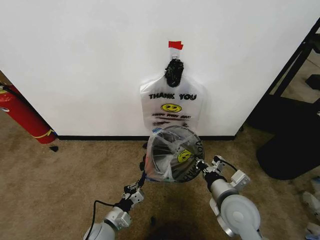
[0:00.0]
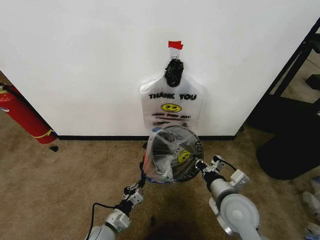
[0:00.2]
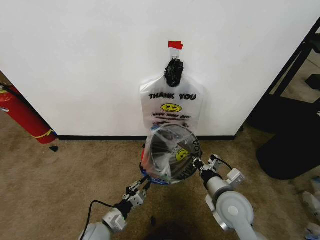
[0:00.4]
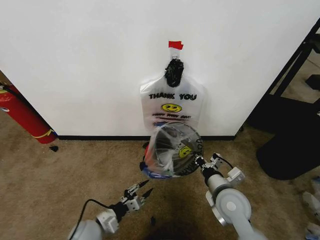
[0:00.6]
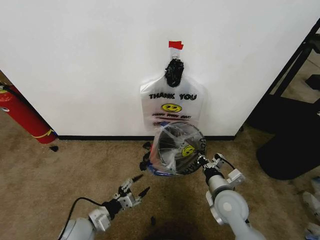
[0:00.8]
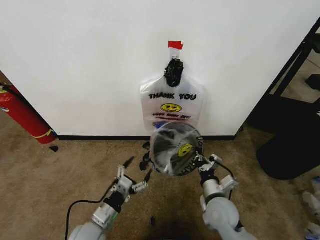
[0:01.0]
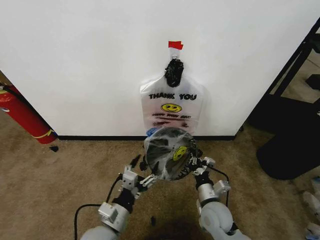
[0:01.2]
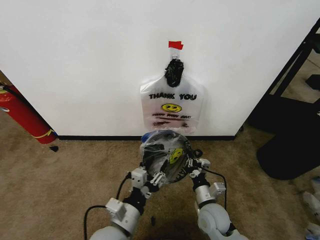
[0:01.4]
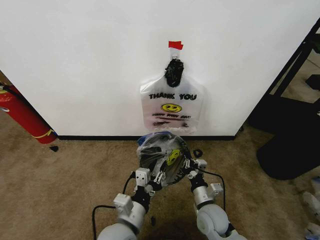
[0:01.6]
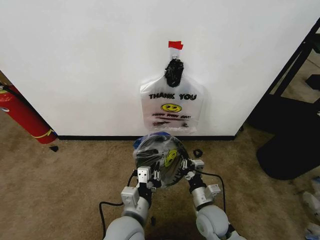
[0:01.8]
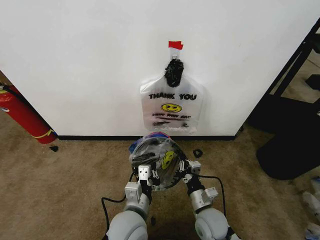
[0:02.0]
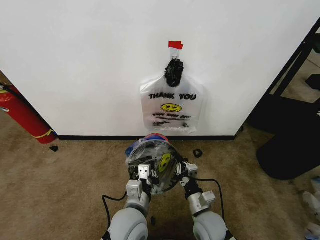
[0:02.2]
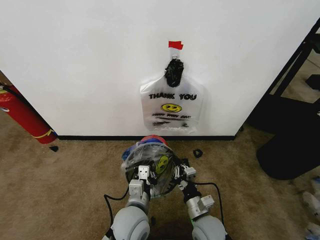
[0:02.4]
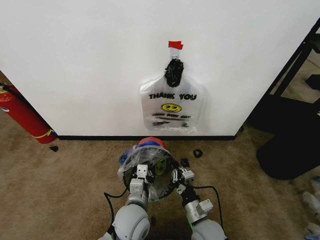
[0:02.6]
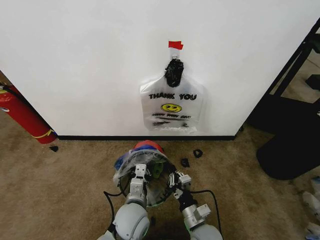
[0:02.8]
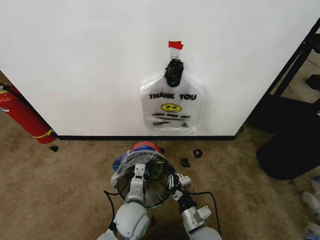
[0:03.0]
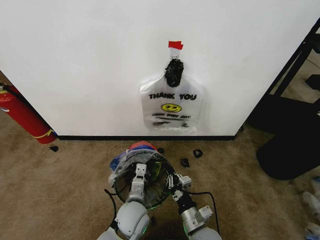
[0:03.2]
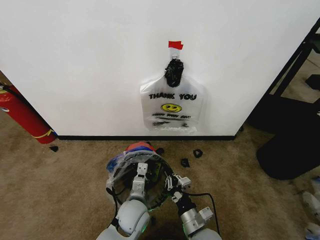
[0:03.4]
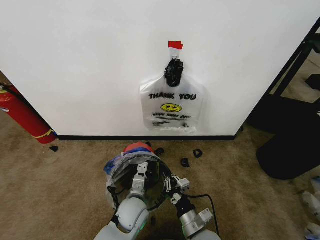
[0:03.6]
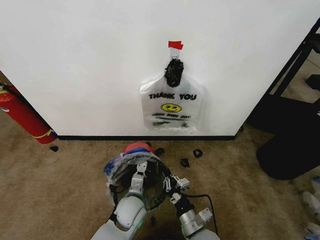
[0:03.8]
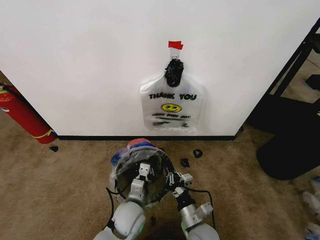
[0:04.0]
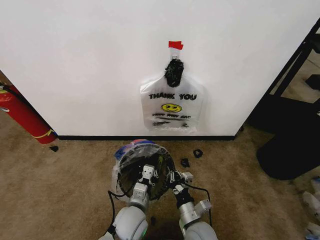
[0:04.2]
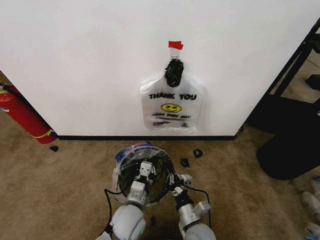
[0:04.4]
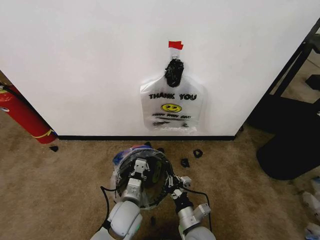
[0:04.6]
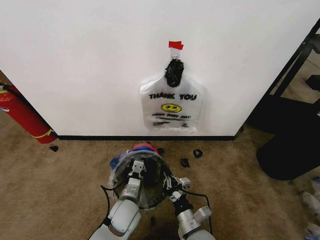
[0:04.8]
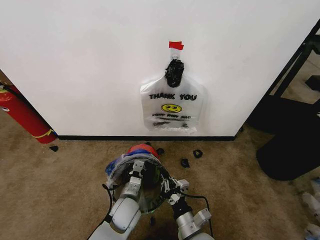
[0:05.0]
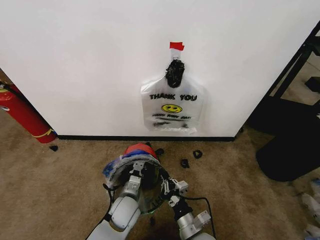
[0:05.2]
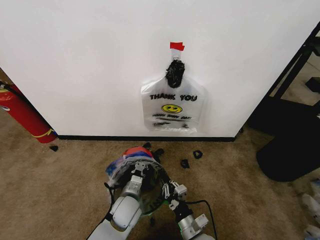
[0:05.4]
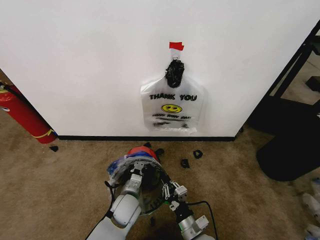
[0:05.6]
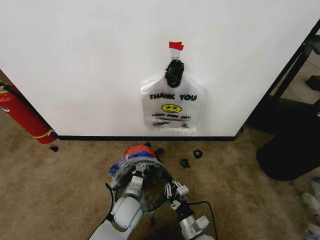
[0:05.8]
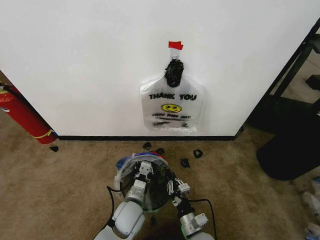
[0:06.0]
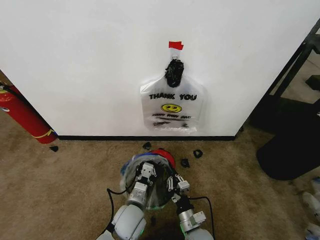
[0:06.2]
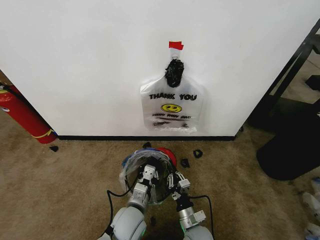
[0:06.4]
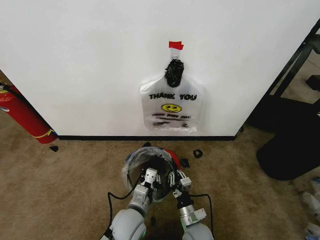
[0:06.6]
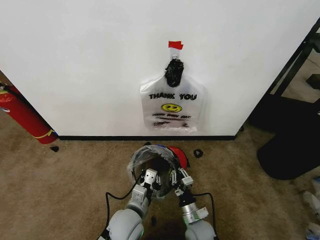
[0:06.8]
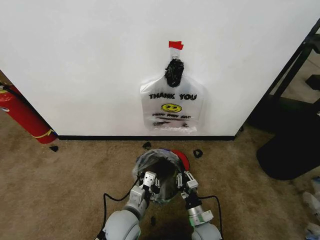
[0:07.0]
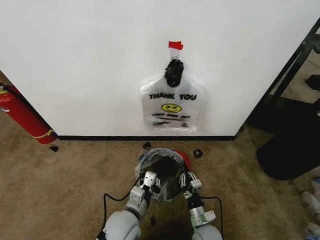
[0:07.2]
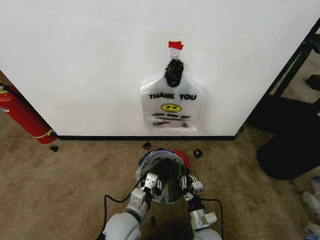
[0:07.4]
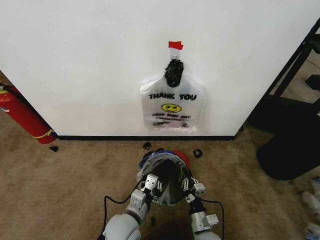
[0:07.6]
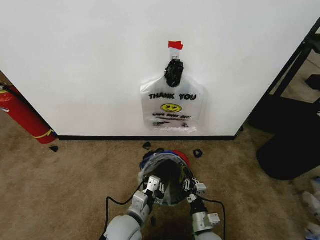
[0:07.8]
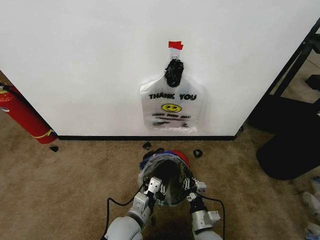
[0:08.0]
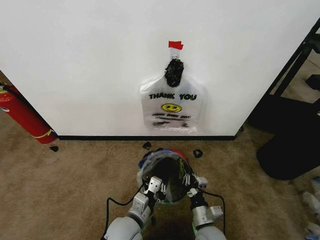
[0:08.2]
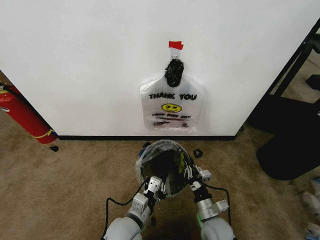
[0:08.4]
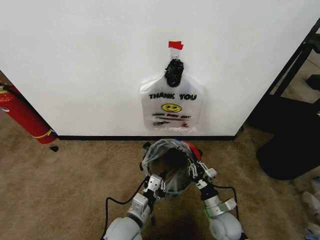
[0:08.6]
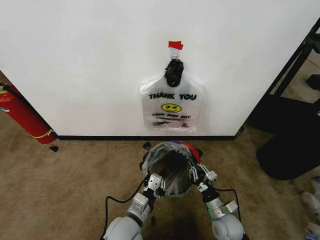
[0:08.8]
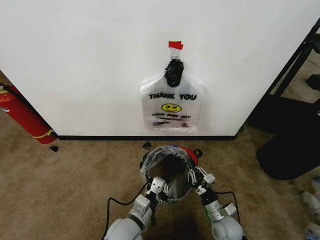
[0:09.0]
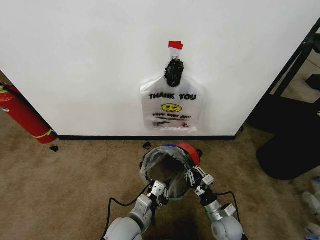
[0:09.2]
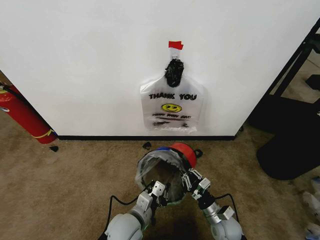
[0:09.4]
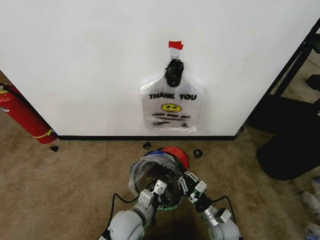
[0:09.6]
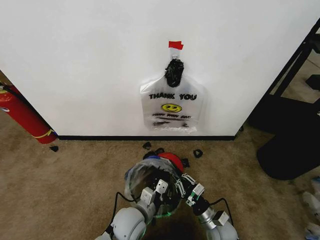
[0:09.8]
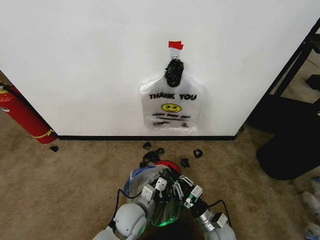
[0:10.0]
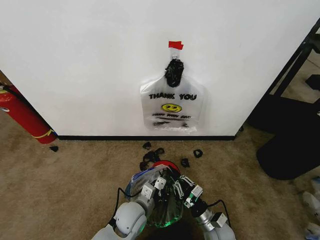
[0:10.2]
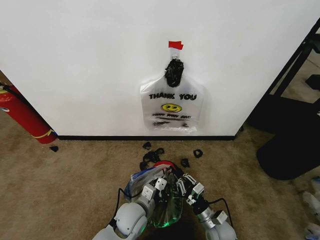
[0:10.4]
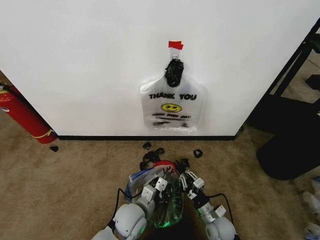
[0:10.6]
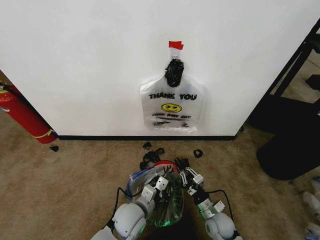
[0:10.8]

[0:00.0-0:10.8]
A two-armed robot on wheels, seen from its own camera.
Task of the whole recording: Pick up the garbage bag from the wall and place it over the trash bin.
0:00.0 to 0:01.6: The right gripper heads downward, covering roughly 10 cm; the left gripper goes some 20 cm upward and to the right, and opens up.
0:01.6 to 0:03.0: The right gripper heads backward, covering approximately 5 cm. Meanwhile the left gripper moves forward and downward, roughly 10 cm, and closes.
0:03.0 to 0:04.6: The grippers move only a little.
0:07.8 to 0:09.2: The right gripper travels to the right and forward by approximately 10 cm.
0:09.2 to 0:10.8: The left gripper goes some 5 cm forward.

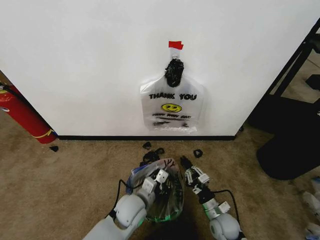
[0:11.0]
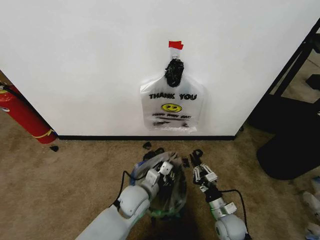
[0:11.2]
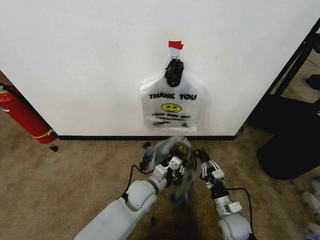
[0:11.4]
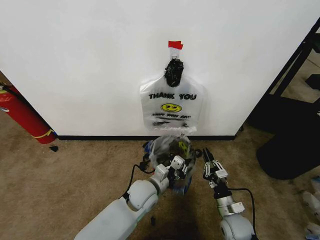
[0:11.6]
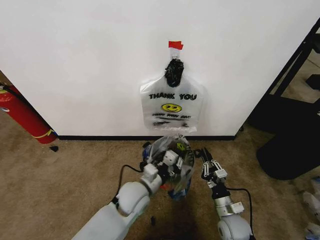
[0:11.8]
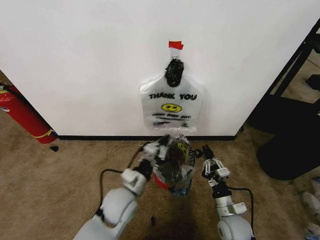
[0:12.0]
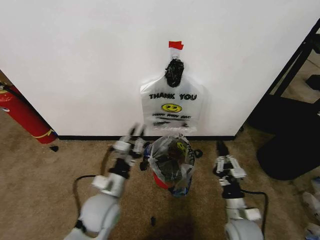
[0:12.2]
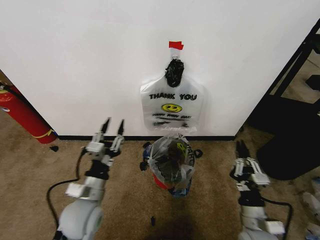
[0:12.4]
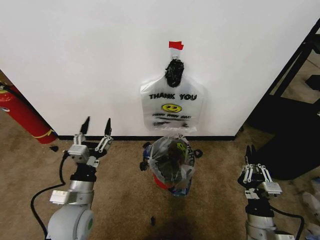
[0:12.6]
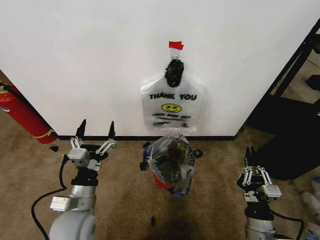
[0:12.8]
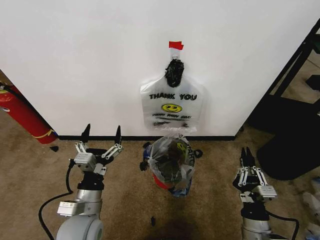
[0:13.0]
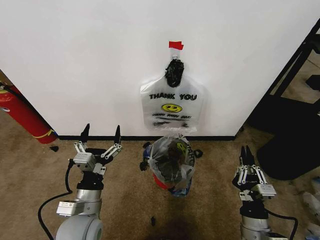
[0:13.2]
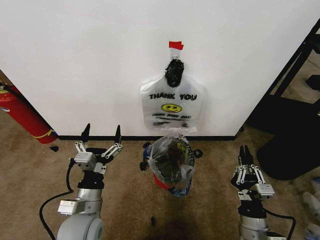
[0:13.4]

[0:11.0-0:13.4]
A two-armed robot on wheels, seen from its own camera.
Task of the whole recording: Pick up the garbage bag from the wall and place it over the trash bin.
0:11.0 to 0:12.2: The left gripper goes approximately 10 cm upward and to the left. Meanwhile the right gripper shifts some 10 cm upward.
0:12.2 to 0:13.4: The right gripper is displaced backward by about 5 cm. The left gripper travels backward and to the left by some 10 cm, and opens up.

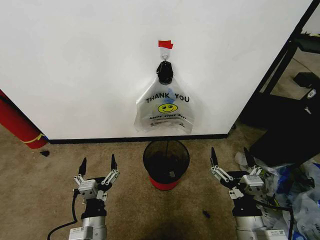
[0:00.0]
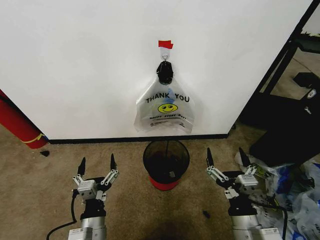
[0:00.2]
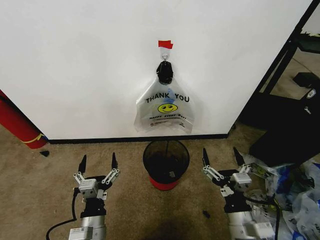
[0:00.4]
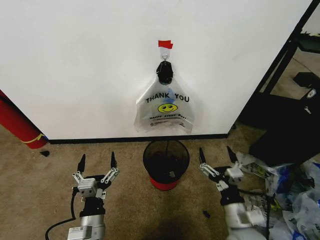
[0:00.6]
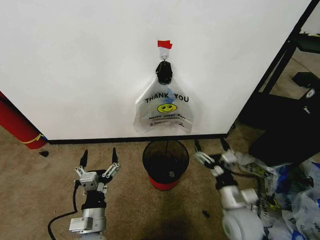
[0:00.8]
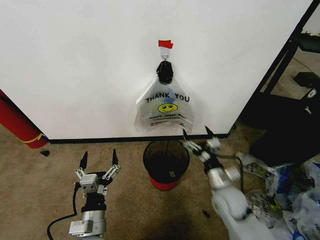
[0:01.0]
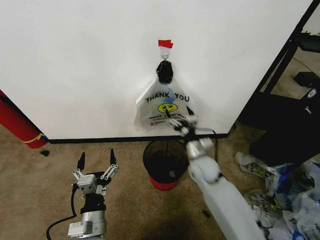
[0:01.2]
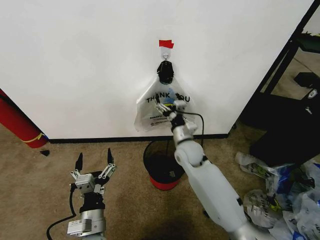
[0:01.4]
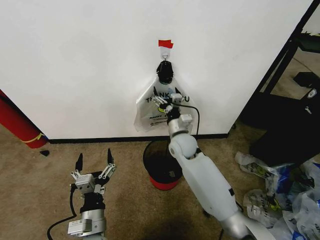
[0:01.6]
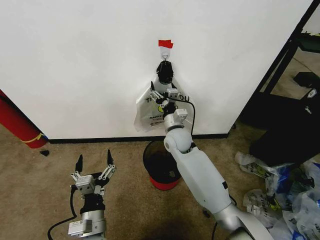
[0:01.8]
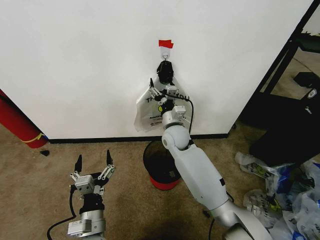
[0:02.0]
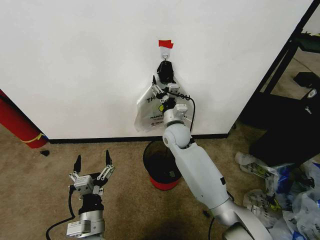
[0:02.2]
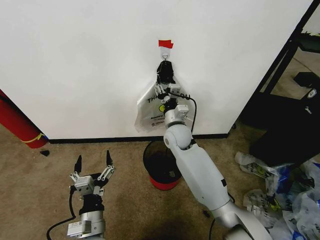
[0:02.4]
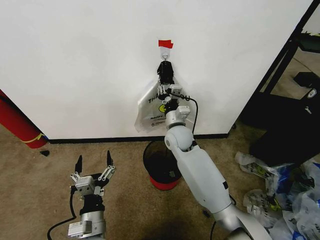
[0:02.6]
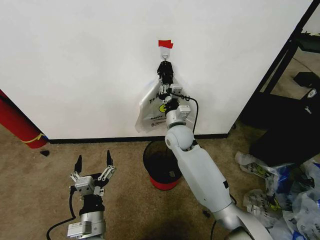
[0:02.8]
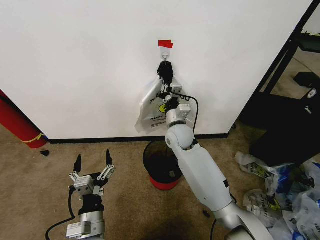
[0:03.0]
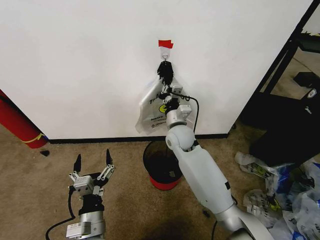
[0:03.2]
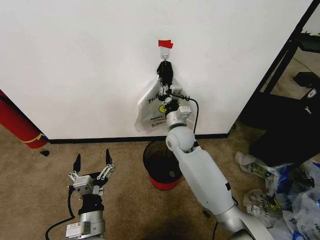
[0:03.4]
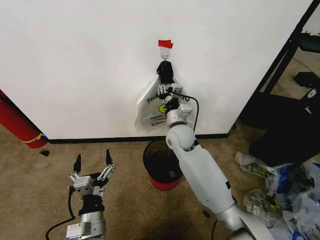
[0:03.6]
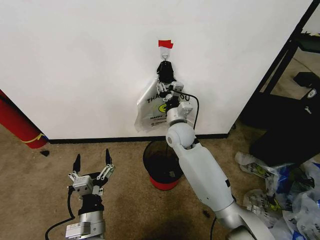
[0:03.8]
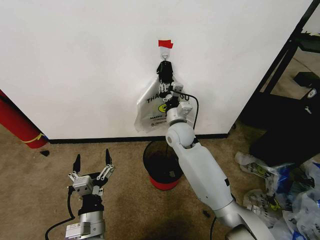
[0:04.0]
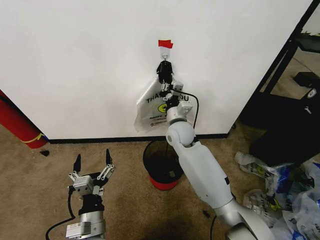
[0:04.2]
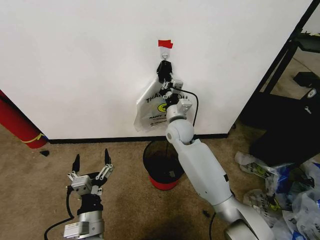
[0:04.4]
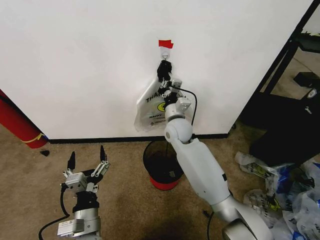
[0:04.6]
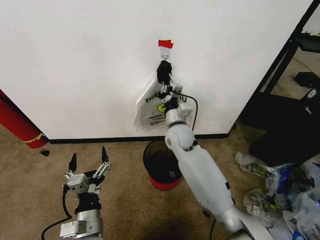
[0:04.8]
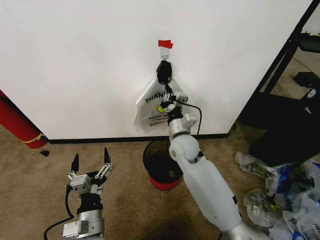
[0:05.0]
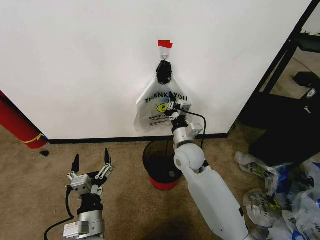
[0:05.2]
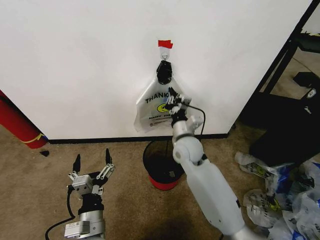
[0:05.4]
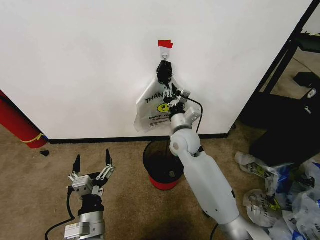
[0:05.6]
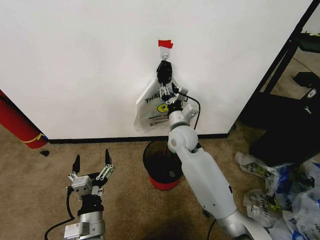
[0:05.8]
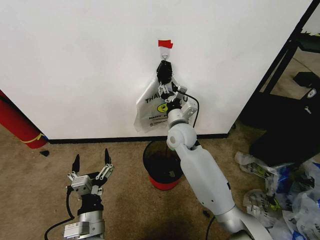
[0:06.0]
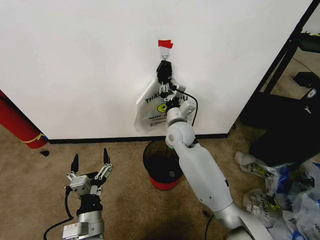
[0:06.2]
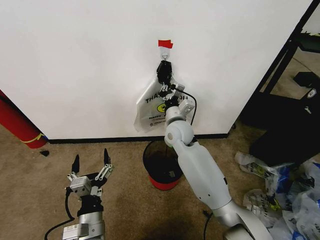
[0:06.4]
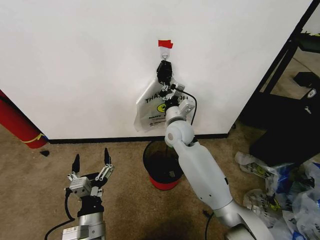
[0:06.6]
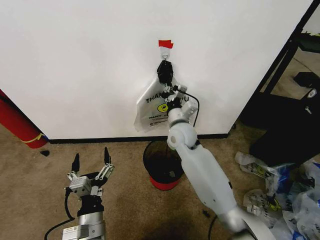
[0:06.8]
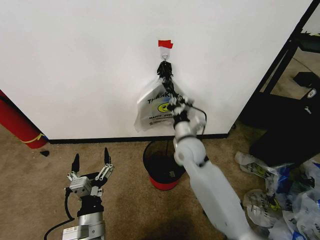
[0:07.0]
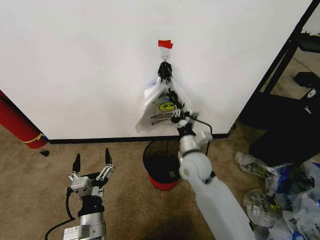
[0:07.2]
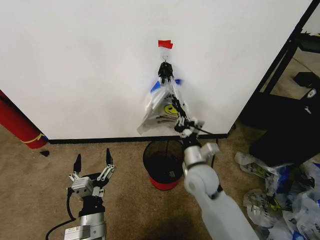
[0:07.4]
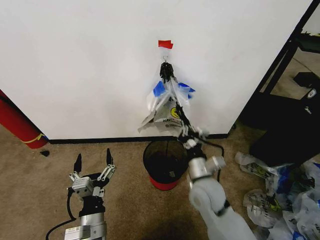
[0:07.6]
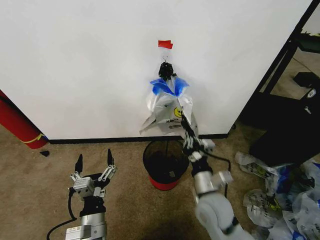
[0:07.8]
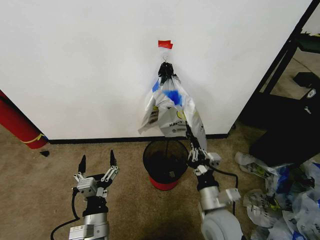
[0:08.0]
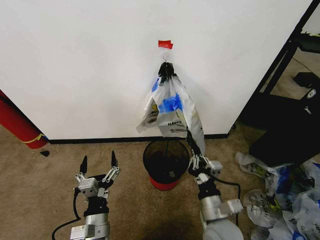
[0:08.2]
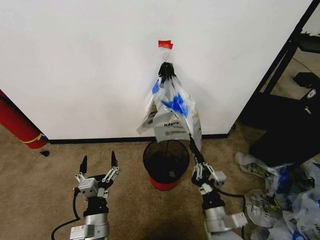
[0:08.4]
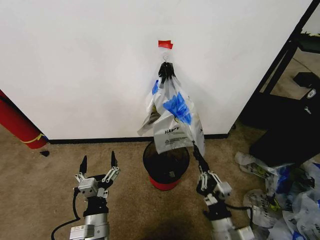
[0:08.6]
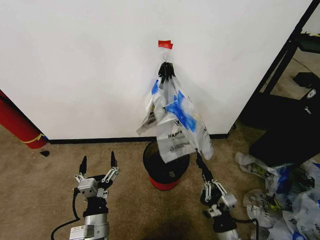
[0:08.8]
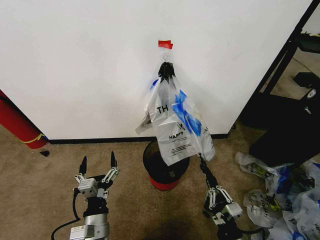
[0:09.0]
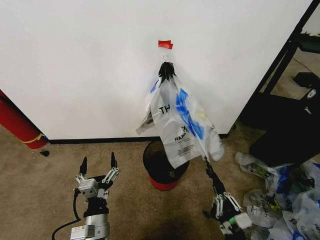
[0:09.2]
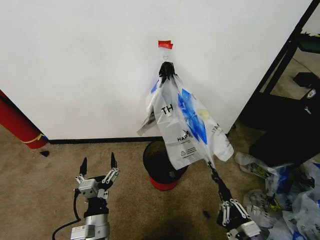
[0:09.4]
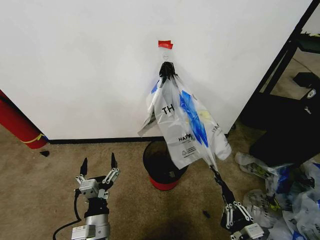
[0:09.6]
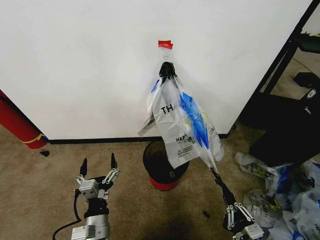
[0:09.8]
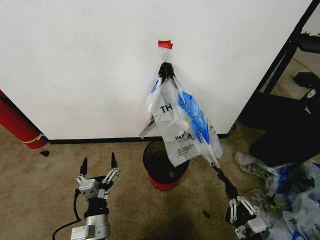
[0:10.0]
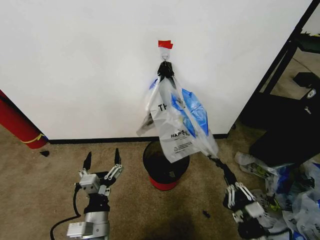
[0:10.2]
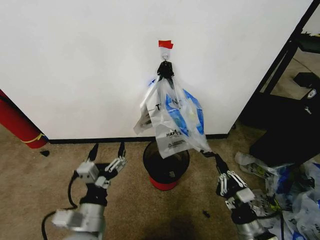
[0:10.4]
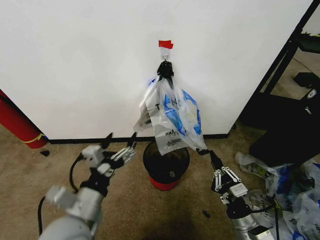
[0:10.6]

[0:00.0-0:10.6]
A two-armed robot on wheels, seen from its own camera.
Task of the whole recording: Pick up the garbage bag from the wall and place it over the trash bin.
0:01.6 to 0:03.0: The right gripper closes its fingers.
0:03.0 to 0:04.6: The right gripper opens and closes again.
0:04.6 to 0:06.0: The right gripper moves some 10 cm backward and comes back, and opens its fingers.
0:06.0 to 0:07.6: The right gripper moves backward and downward, roughly 20 cm, and closes up.
0:07.6 to 0:09.0: The right gripper heads backward, downward and to the right, covering roughly 25 cm.
0:09.0 to 0:10.6: The left gripper shifts approximately 15 cm upward. Meanwhile the right gripper travels forward by some 5 cm.
